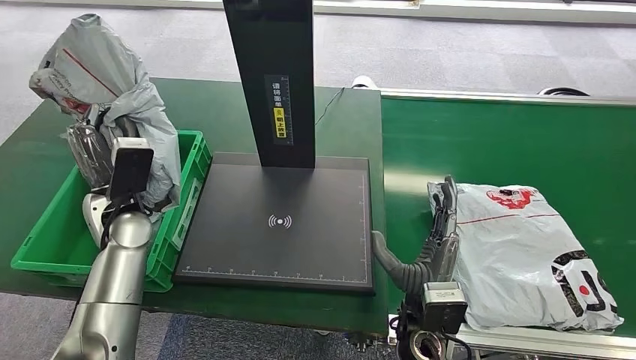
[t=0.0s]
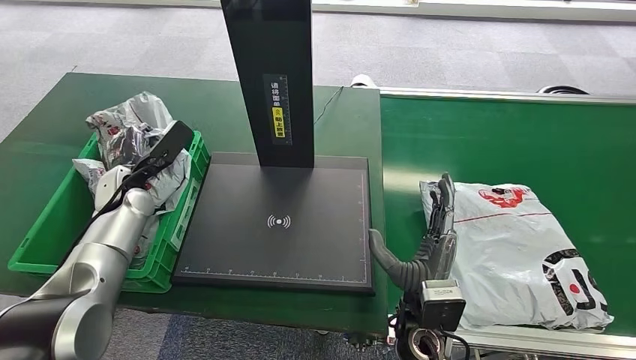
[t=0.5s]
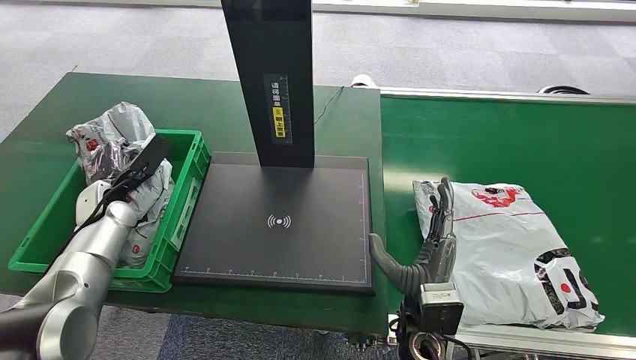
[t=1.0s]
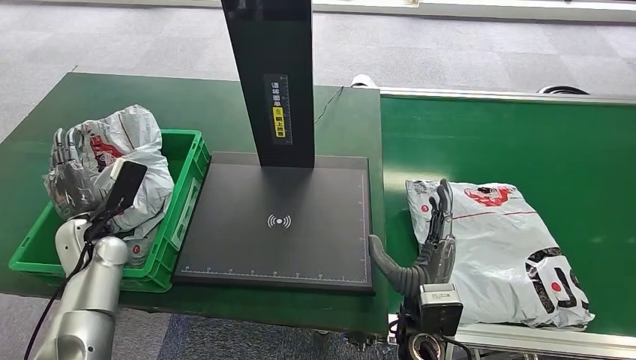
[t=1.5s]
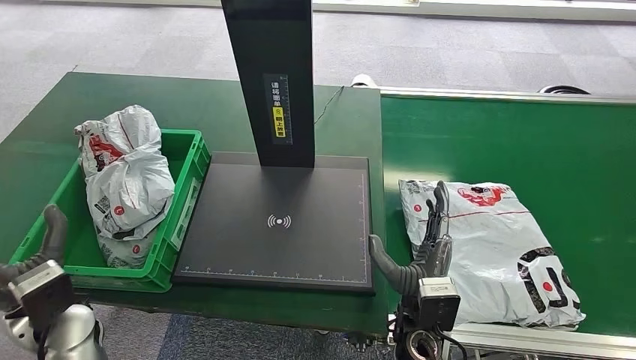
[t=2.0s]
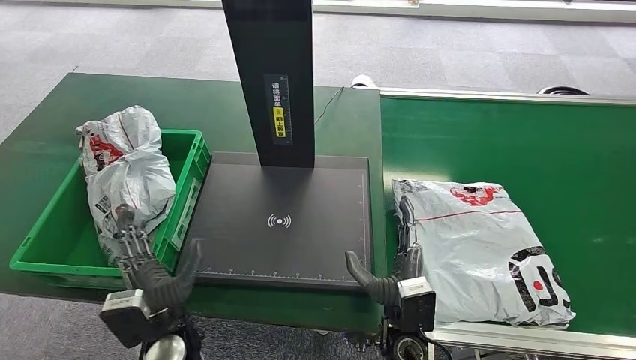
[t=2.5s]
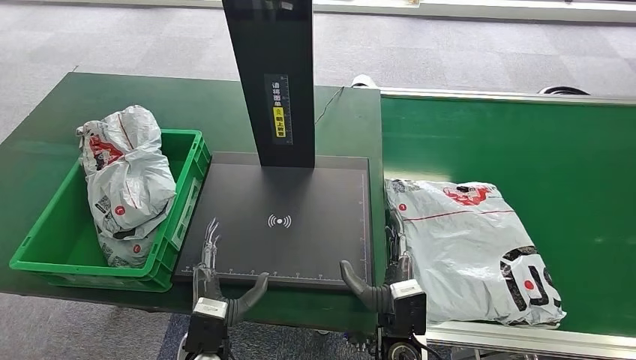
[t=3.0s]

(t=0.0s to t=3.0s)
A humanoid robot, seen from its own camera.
Step, t=0.0s - t=3.0s: Place the package into the parcel locker.
t=1.5s - t=3.0s: The left hand moves to the right and backward, approximately 30 cm, while the right hand shifts some 5 cm downward.
